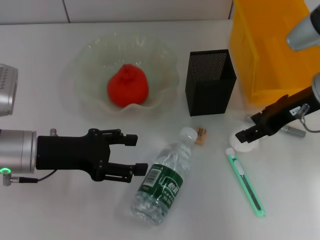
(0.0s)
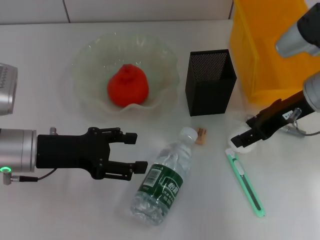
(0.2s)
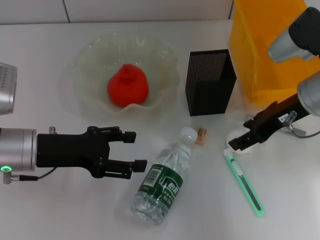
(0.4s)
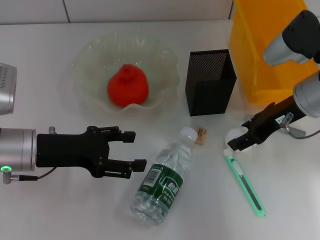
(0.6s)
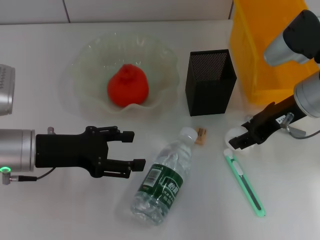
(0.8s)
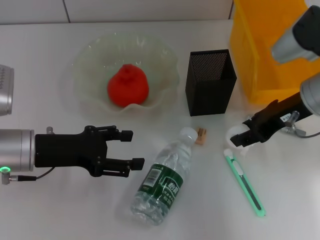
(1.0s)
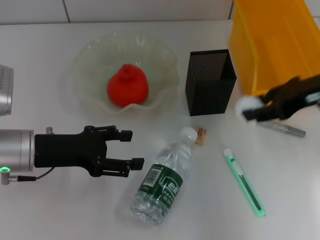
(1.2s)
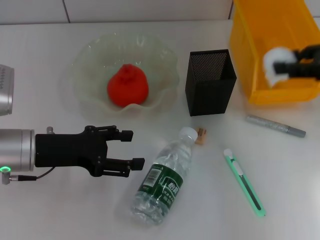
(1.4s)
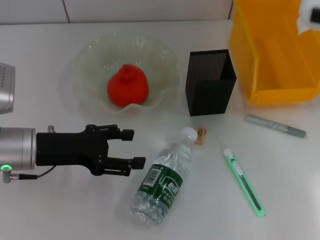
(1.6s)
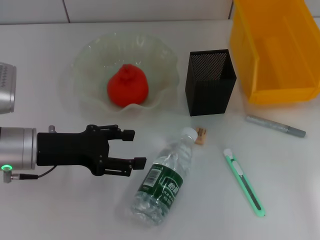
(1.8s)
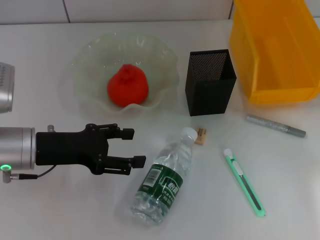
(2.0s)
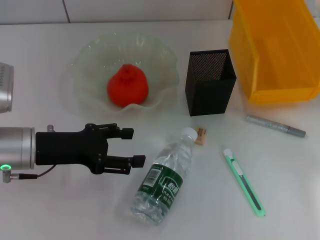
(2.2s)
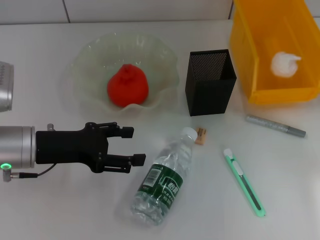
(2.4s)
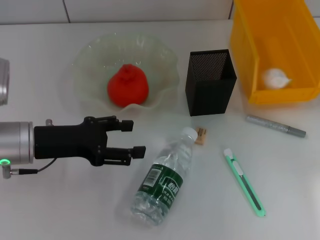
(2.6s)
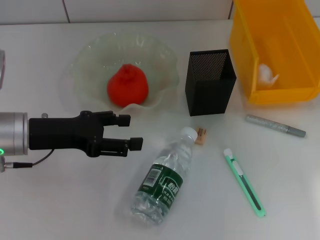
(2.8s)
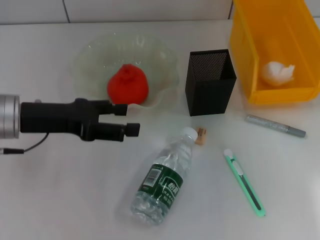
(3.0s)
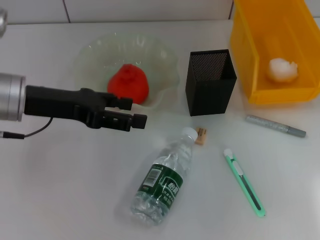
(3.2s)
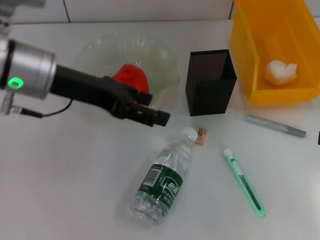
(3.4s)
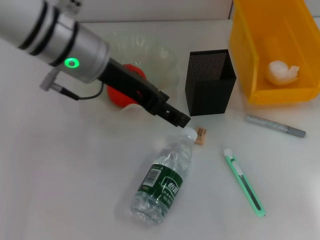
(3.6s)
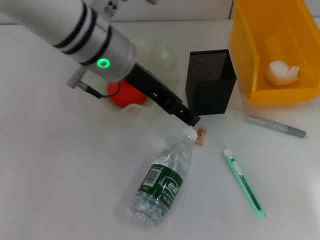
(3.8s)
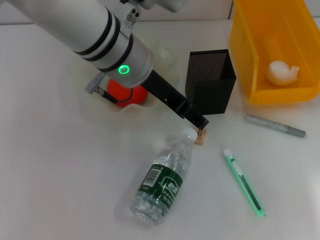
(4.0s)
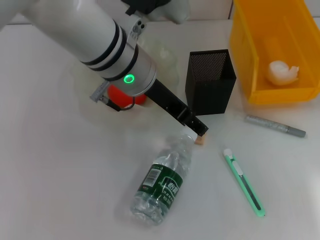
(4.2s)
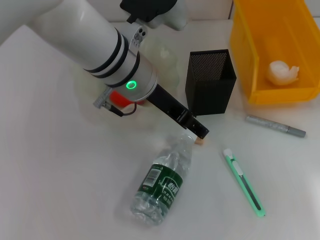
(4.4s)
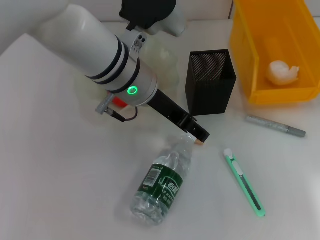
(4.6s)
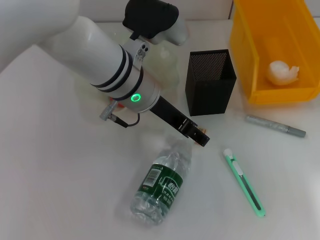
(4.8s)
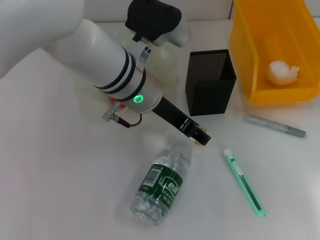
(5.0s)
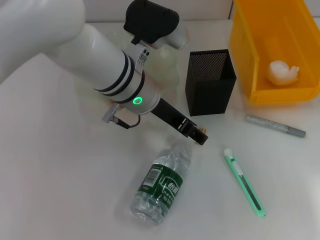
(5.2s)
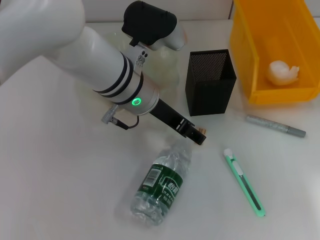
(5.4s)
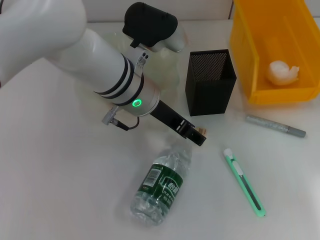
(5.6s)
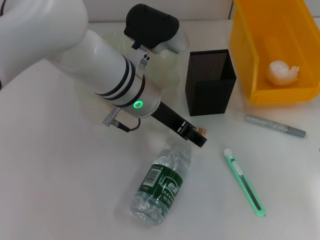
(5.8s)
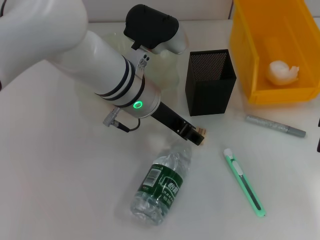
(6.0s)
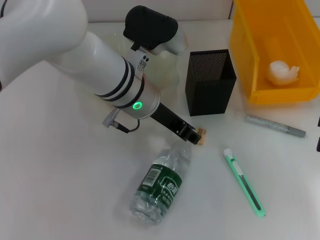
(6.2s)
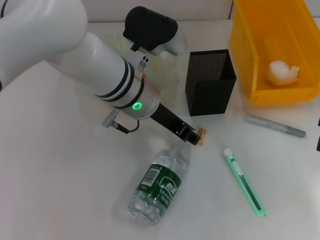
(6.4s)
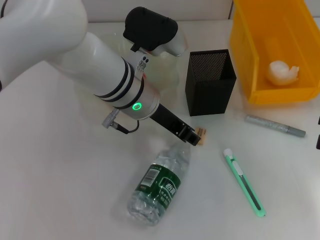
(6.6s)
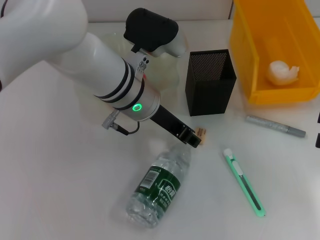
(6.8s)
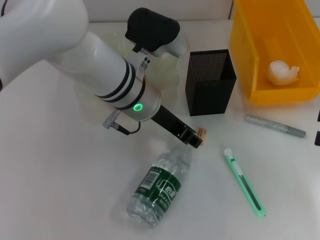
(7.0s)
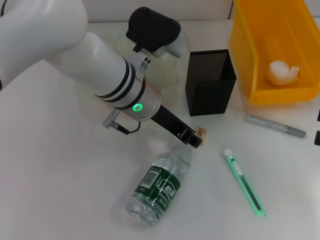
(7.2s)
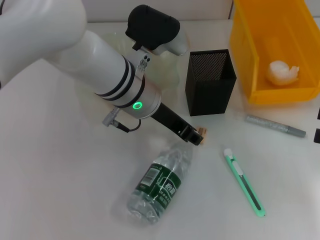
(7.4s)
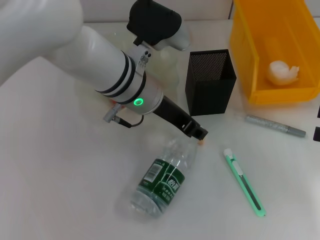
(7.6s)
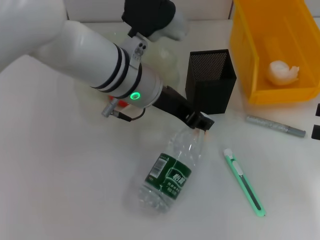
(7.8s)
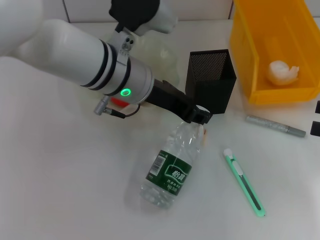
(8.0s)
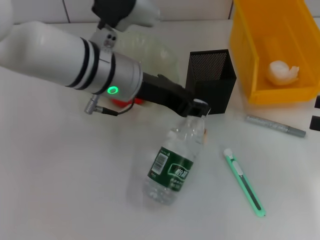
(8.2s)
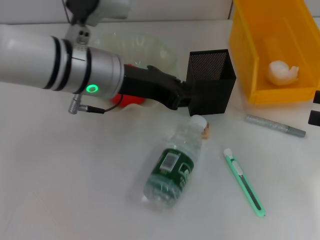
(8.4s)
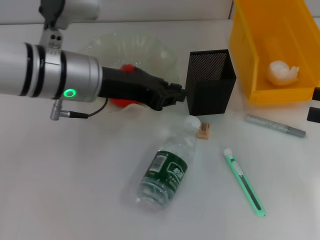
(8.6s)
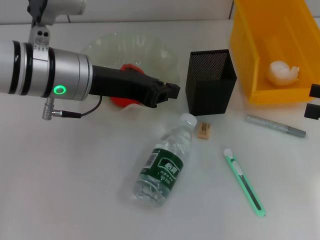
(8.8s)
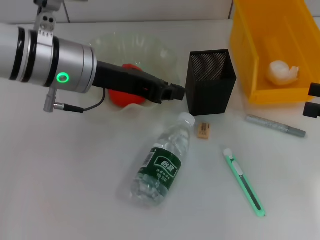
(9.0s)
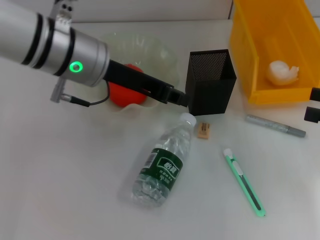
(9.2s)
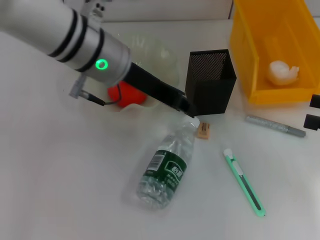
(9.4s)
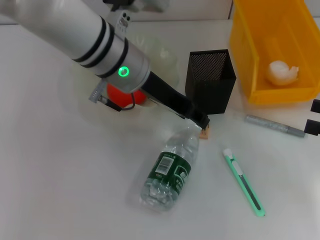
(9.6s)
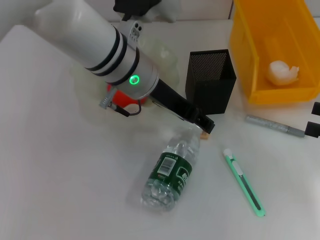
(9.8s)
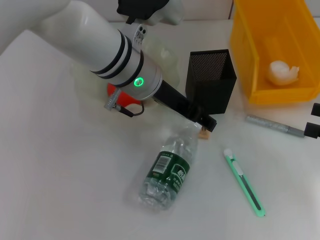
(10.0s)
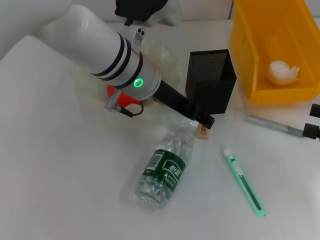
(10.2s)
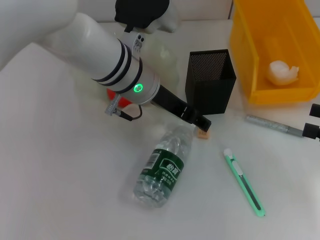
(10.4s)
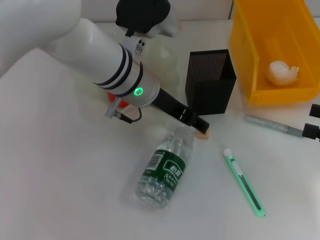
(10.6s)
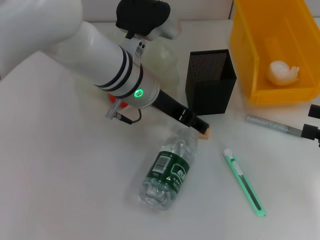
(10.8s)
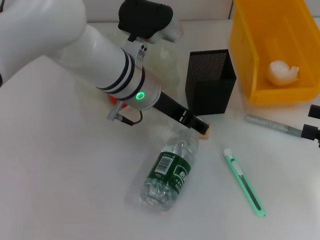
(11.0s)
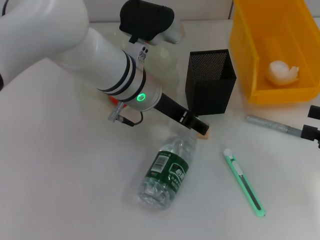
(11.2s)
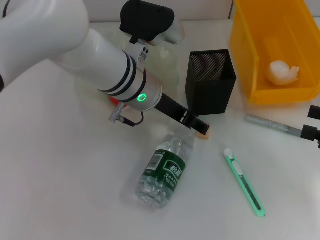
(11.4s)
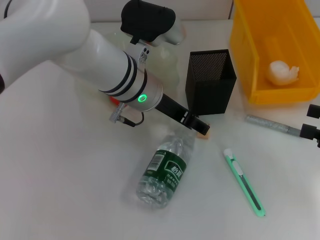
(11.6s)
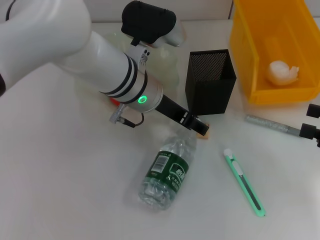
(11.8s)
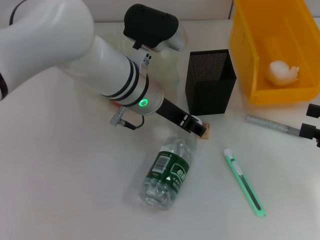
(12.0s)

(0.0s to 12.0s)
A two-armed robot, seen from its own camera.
Step, 1.0s - 2.8s: Place the paper ball into the trash can with the right hand.
0.0s - 1.6s: The right gripper is displaced to the right and upward by approximately 15 cm.
1.6s - 3.0s: The left gripper moves roughly 5 cm, while the right gripper moves backward, about 5 cm, and opens up.
3.0s - 4.4s: The left gripper shifts roughly 20 cm to the right. The right gripper moves some 5 cm.
4.4s - 6.0s: There are only small adjustments of the grippers.
6.0s - 7.6s: The left gripper closes its fingers.
7.6s - 9.0s: The left gripper shifts roughly 10 cm to the left, and closes.
9.0s - 10.4s: The left gripper goes about 10 cm to the right, and opens its fingers.
10.4s - 12.0s: The grippers make only small movements.

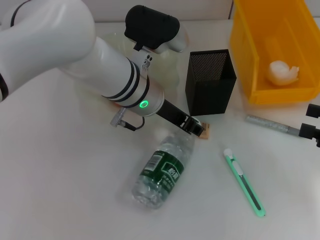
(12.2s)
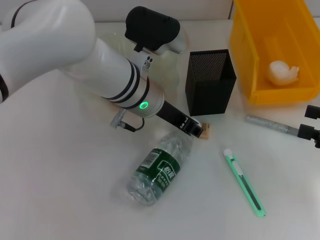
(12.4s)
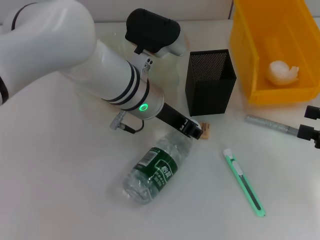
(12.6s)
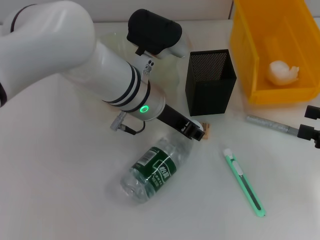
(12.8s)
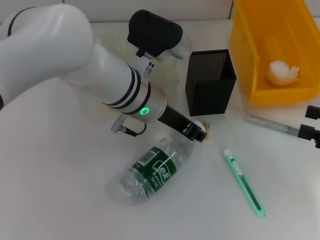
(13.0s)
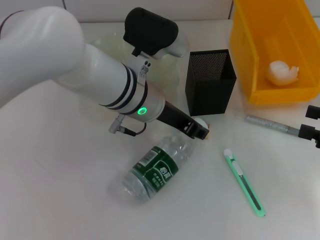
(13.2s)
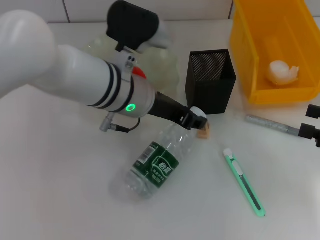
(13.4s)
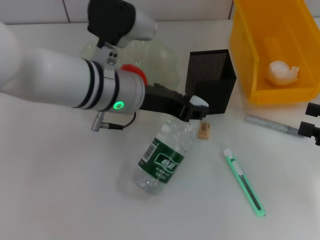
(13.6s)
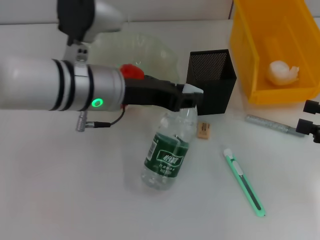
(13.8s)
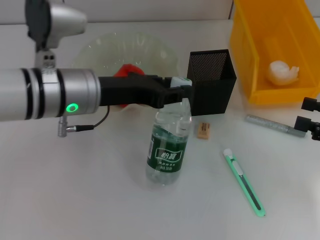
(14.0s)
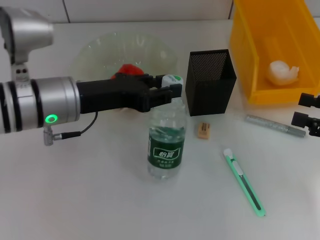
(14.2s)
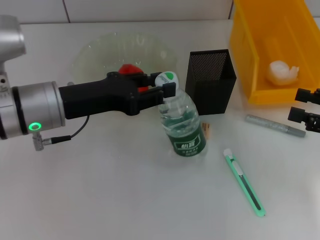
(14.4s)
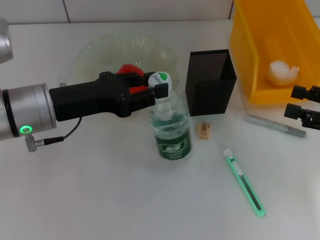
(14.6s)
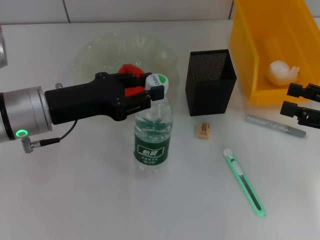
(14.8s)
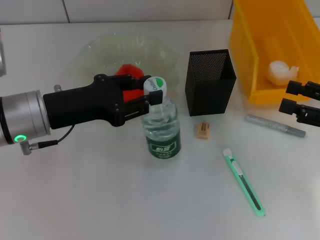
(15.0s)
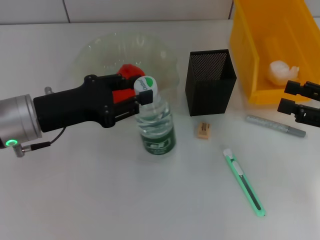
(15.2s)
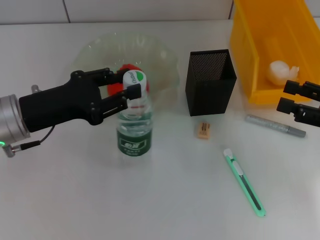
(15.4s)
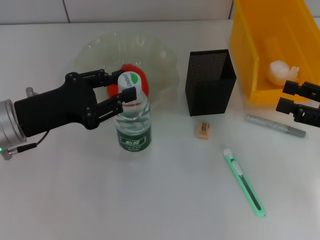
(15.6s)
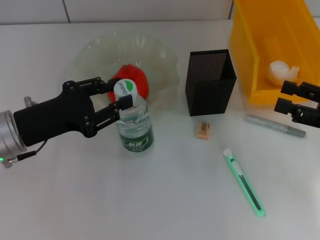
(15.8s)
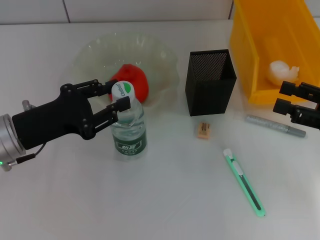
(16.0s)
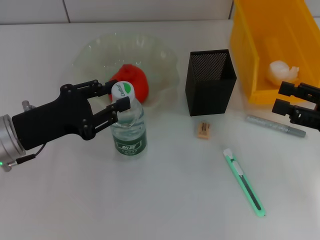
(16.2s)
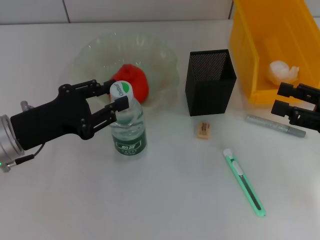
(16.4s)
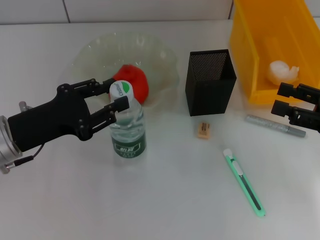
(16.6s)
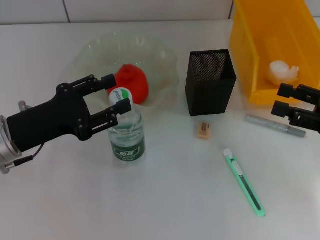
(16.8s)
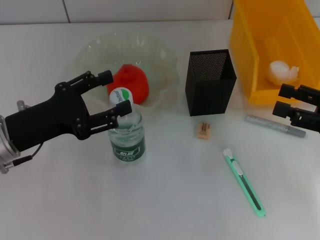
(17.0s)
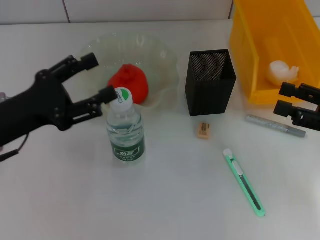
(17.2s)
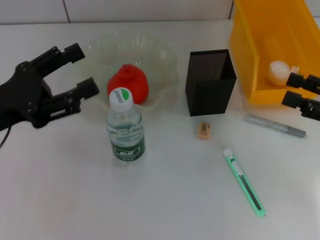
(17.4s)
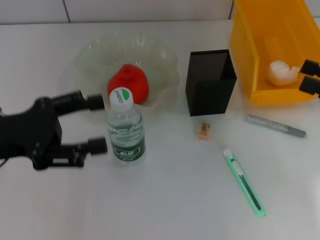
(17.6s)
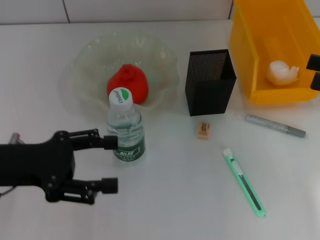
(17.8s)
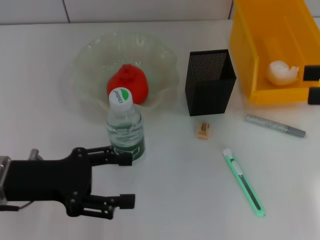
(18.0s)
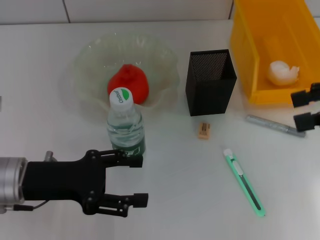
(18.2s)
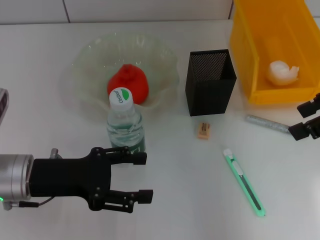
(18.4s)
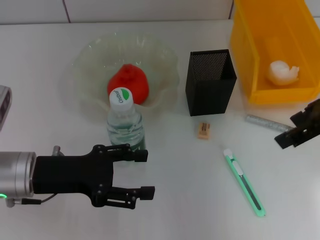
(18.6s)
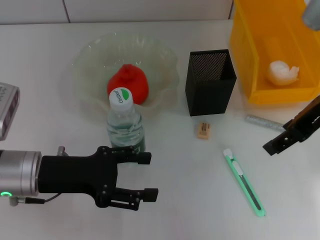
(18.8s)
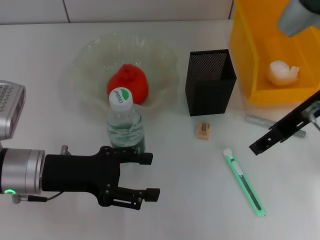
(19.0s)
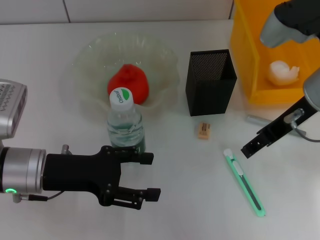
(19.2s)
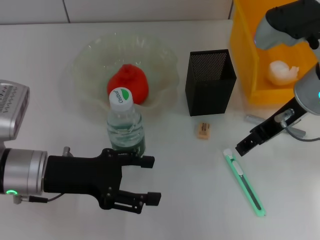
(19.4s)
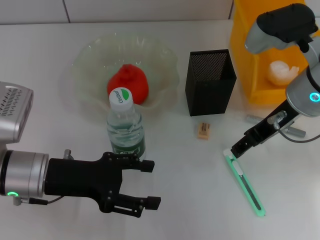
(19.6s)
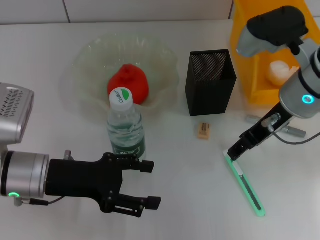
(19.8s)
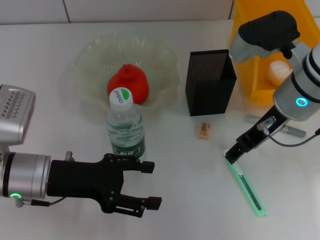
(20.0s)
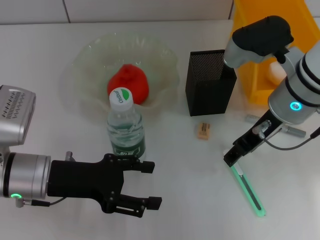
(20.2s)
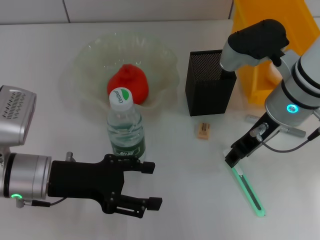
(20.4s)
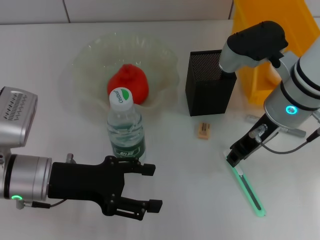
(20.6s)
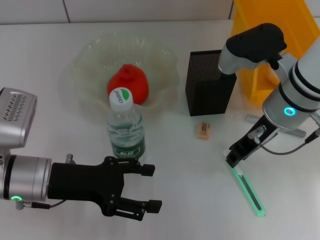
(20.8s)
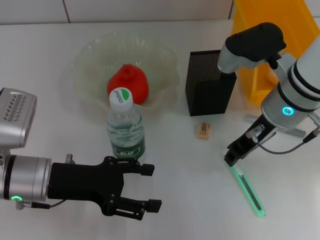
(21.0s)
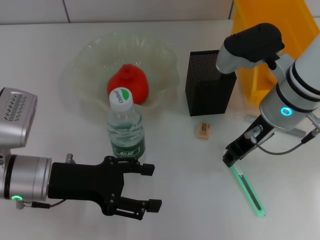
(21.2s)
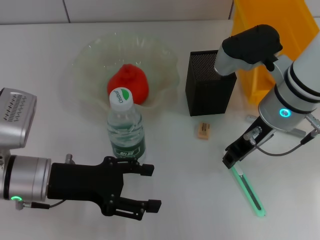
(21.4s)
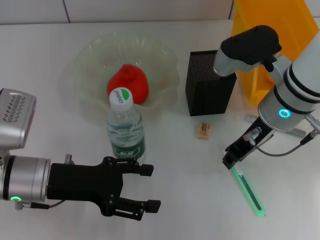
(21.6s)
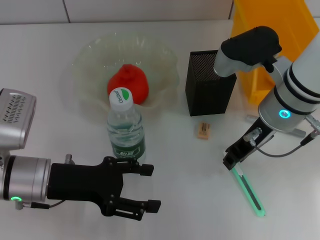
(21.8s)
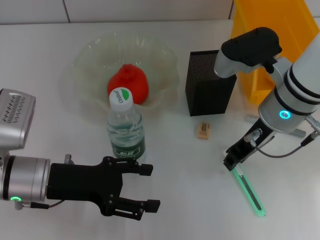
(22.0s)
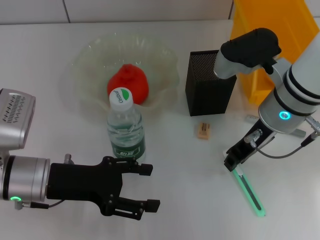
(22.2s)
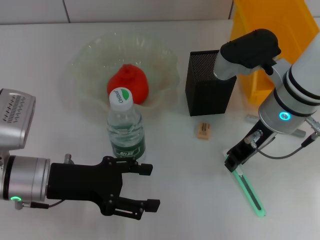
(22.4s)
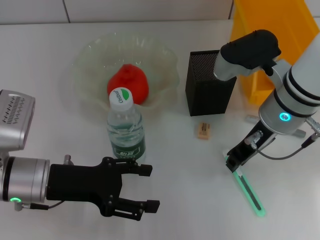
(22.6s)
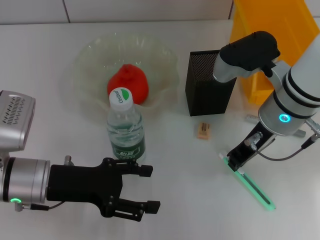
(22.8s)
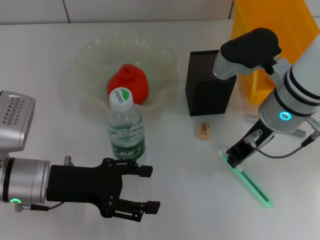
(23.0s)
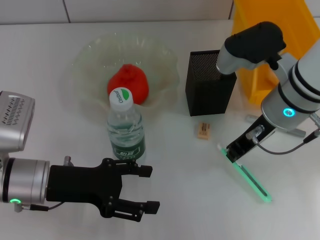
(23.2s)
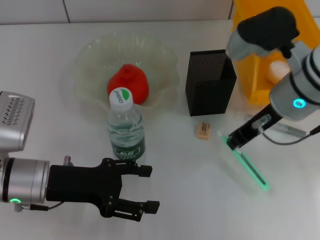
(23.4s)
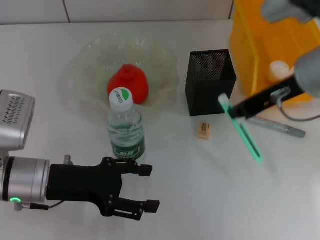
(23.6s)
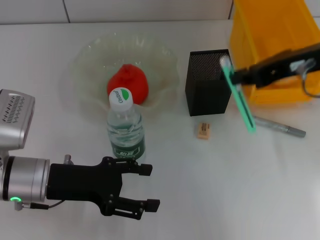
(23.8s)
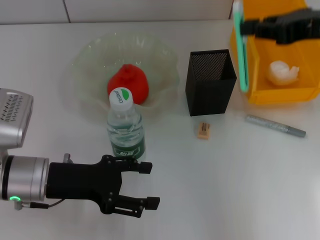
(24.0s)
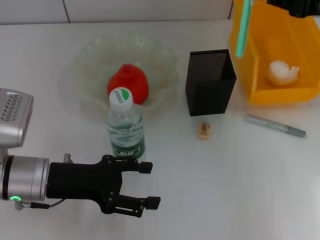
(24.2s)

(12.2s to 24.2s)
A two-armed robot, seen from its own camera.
Step, 13.2s - 16.8s: Place the water bottle on the table with the left hand.
Step, 17.0s - 22.6s: Grab the blue utility knife with the right hand.
12.2s - 13.8s: The left gripper goes some 5 cm to the left.
13.8s - 15.2s: The left gripper goes about 10 cm to the left.
15.2s - 16.6s: The grippers move only a little.
16.6s - 18.2s: The right gripper heads upward, covering approximately 15 cm; the left gripper opens its fingers.
18.2s - 19.8s: The right gripper moves to the left and downward, some 15 cm.
19.8s - 21.2s: The right gripper closes its fingers.
21.2s - 22.6s: Neither gripper changes place.
22.6s - 24.2s: The right gripper travels to the right and upward by about 15 cm.
